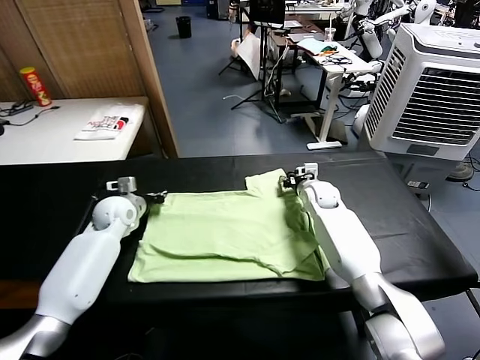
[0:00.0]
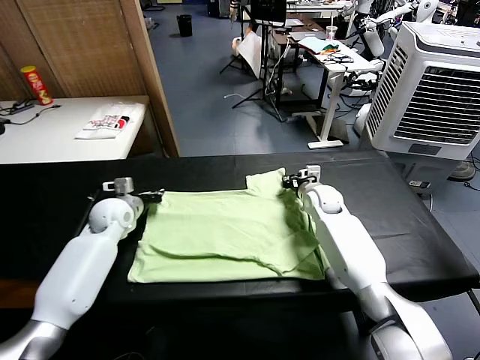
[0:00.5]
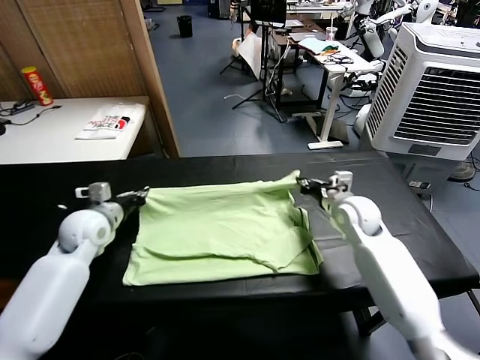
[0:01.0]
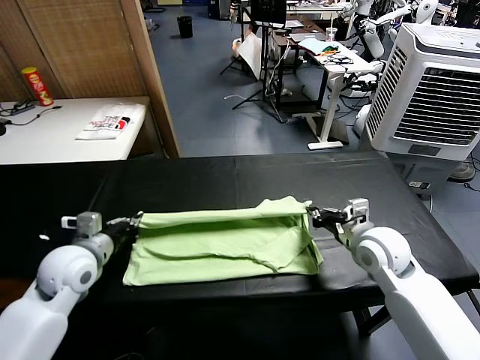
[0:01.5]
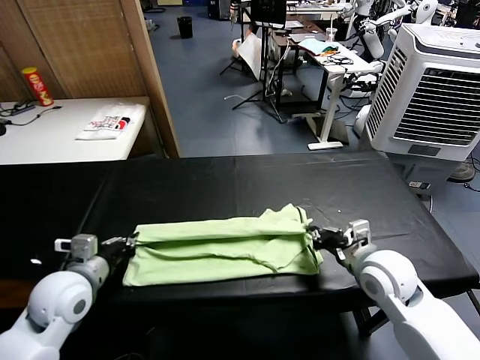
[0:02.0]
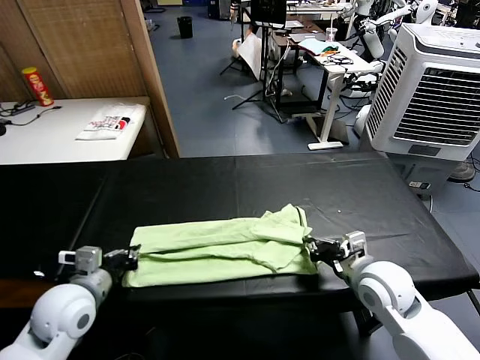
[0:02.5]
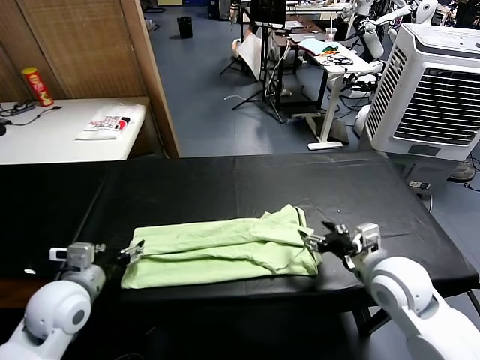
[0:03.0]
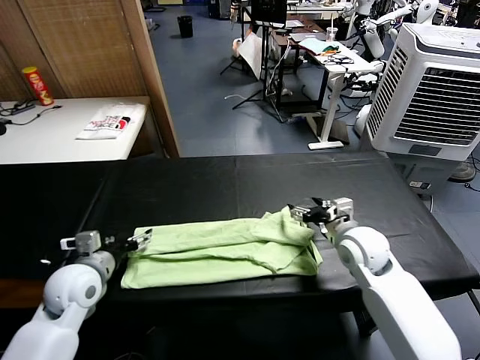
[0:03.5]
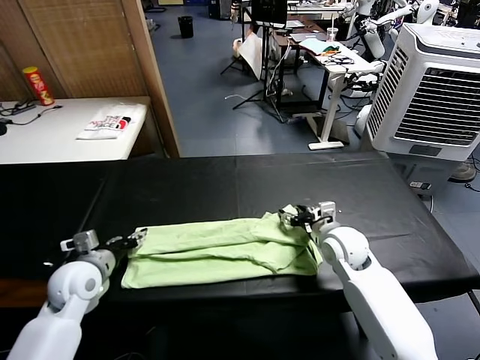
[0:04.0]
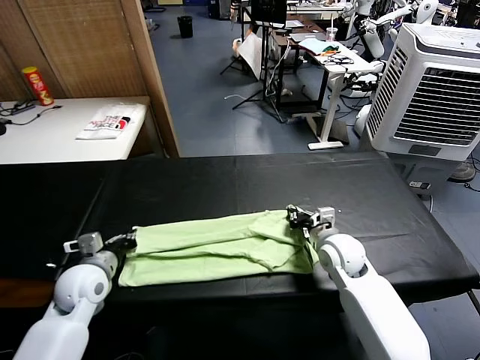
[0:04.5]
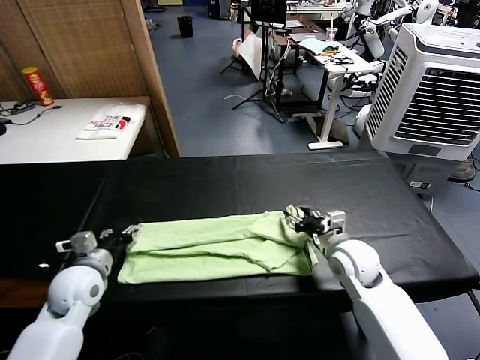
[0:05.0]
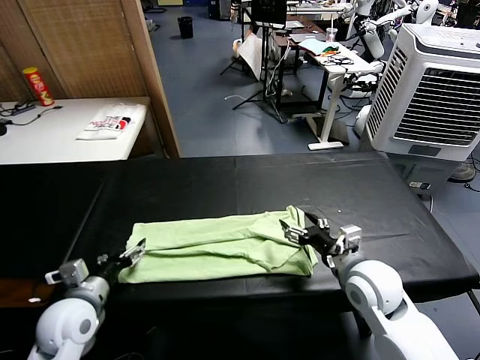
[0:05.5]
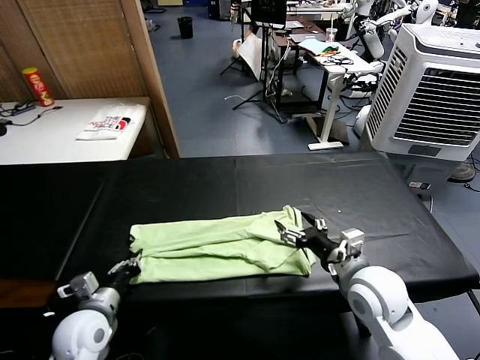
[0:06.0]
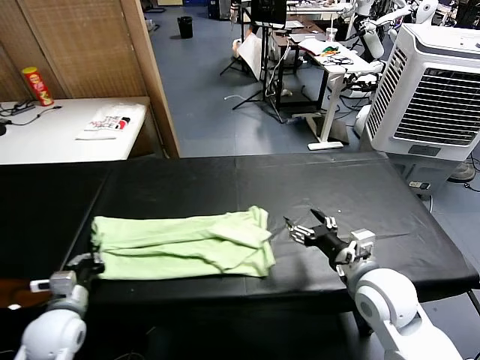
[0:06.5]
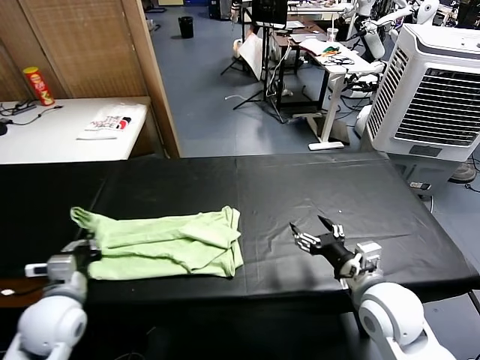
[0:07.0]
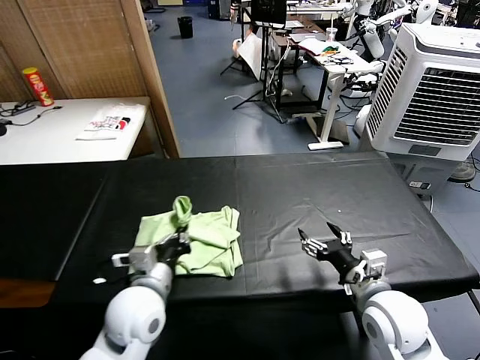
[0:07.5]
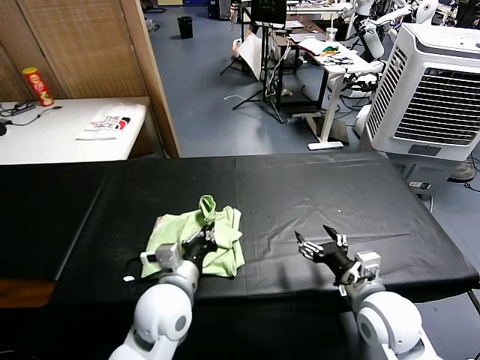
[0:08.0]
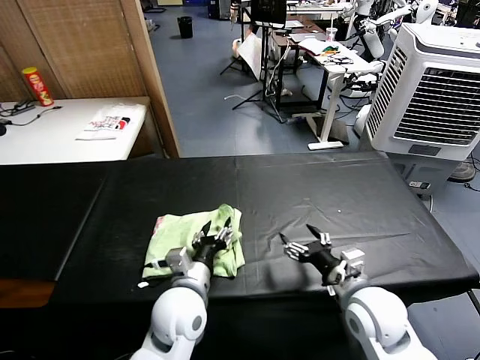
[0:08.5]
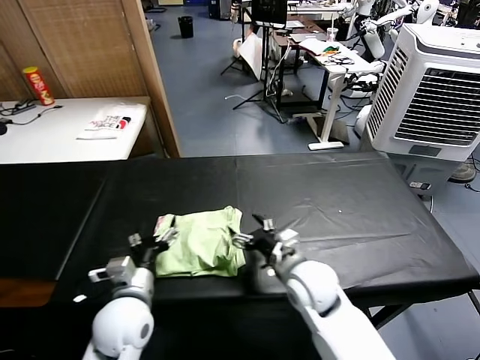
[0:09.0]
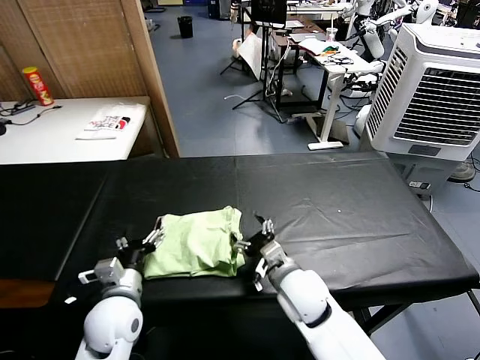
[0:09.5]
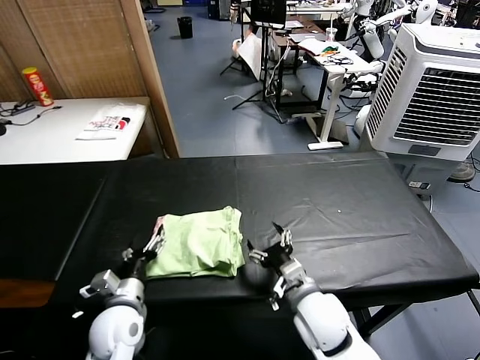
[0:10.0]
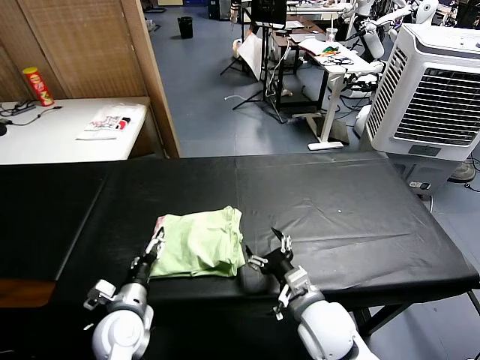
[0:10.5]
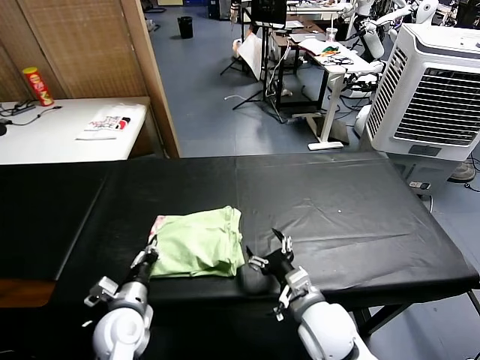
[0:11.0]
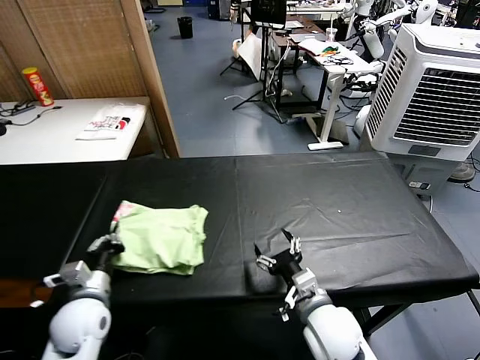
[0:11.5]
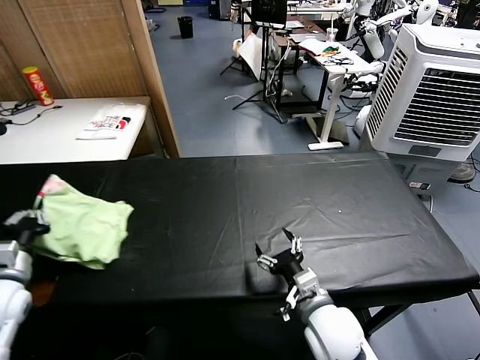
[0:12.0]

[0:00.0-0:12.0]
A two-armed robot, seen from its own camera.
Task of the whole recording: fold and organize the clothes.
Step, 0.5 to 2.5 s: use both grippers to drag the upper edge of the fabric backward and fold it over the lower edge.
Step, 3.0 to 6.0 s: use the left gripper to clamp the left edge of the fabric.
Step, 6.5 to 8.5 s: use the left gripper to drag the left edge of the fabric to the left and folds it over the right edge.
0.0 to 2.0 s: Both grippers move backward, some 25 cm.
2.0 to 4.0 s: The right gripper goes about 10 cm forward and downward, and opens up, while the left gripper ends up some 5 cm from where it was, and opens.
4.0 to 6.0 s: The left gripper moves backward, roughly 10 cm, and closes, while the right gripper moves backward and upward, approximately 15 cm, and opens.
6.0 to 8.0 s: The left gripper moves to the right and upward, about 20 cm.
8.0 to 10.0 s: The right gripper travels to the left by approximately 10 cm. The left gripper heads to the left and downward, covering roughly 15 cm, and opens its fingers.
10.0 to 12.0 s: The left gripper goes roughly 20 cm to the left and upward, and closes up.

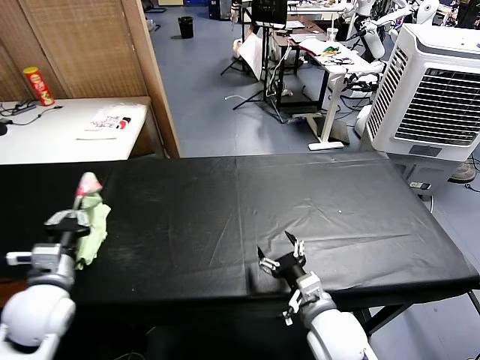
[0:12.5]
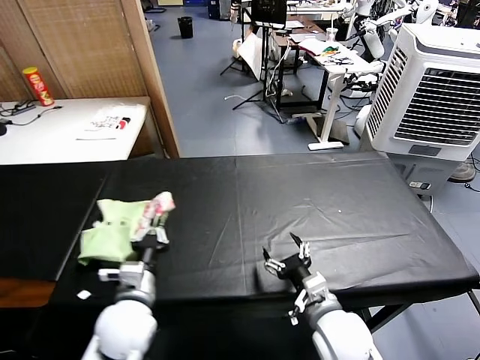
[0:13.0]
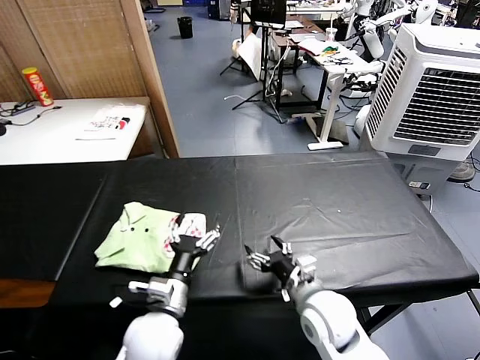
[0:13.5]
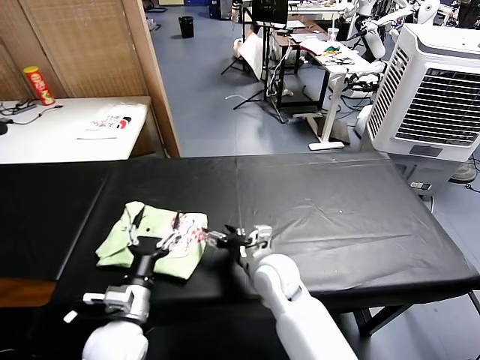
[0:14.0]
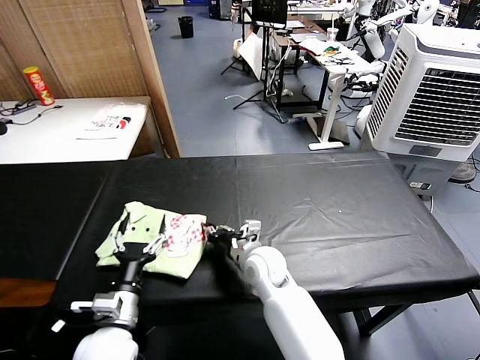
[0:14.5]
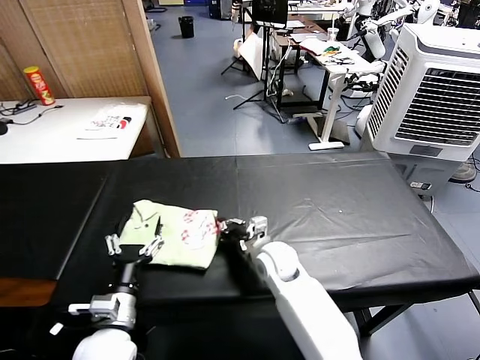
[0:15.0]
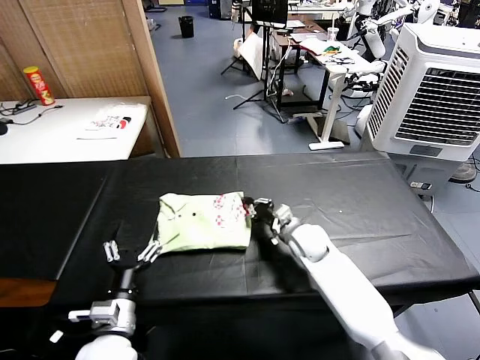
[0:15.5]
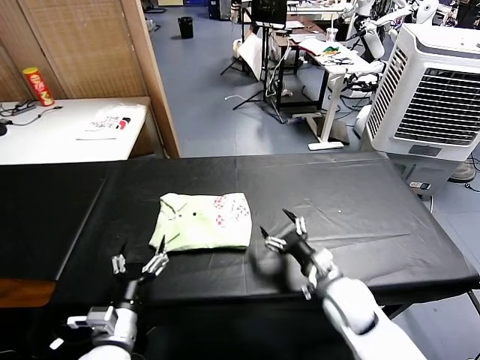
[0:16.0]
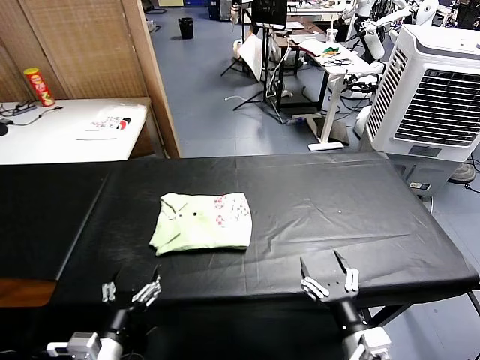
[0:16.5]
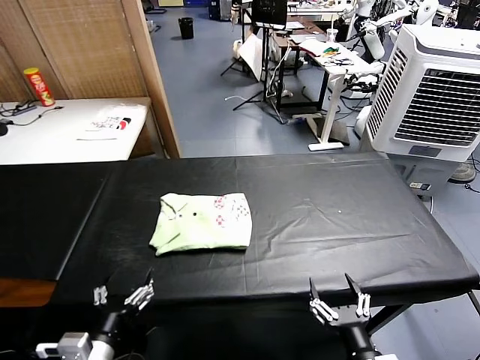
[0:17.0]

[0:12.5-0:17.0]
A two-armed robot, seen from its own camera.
Task of the whole recording: fold and organize the clothes.
Step, 13.5 to 15.5 s: Drag the clothes to the center of the table.
12.5 to 14.5 s: The left gripper heads to the right and downward, covering some 15 cm, and opens its fingers. Meanwhile the right gripper shifts roughly 20 cm forward and to the left, and closes.
14.5 to 17.0 s: The left gripper goes about 10 cm backward, while the right gripper moves backward and to the right, some 35 cm, and opens its fingers.

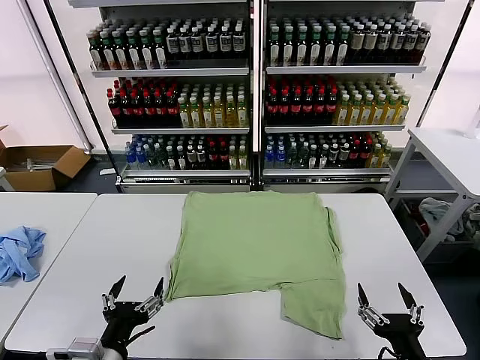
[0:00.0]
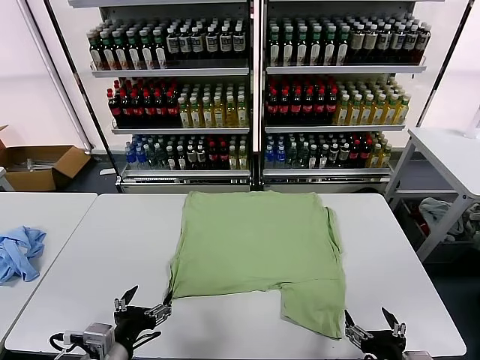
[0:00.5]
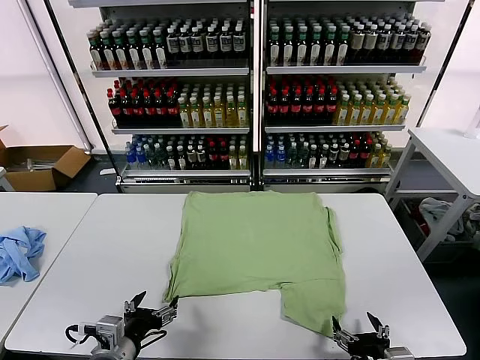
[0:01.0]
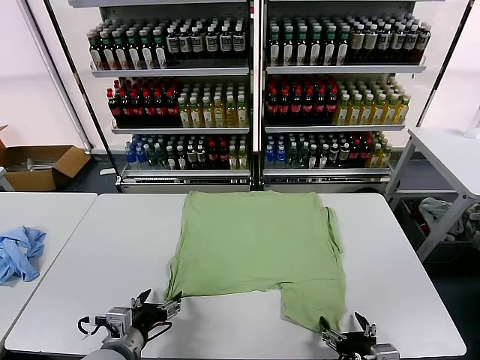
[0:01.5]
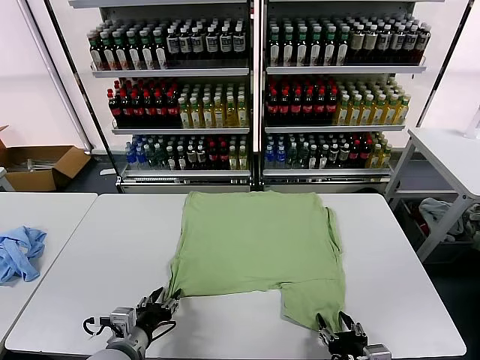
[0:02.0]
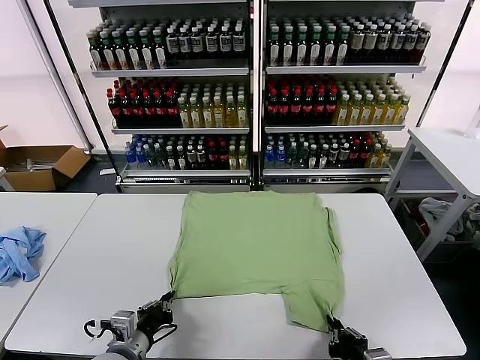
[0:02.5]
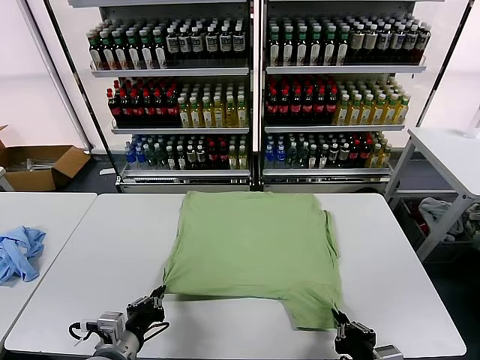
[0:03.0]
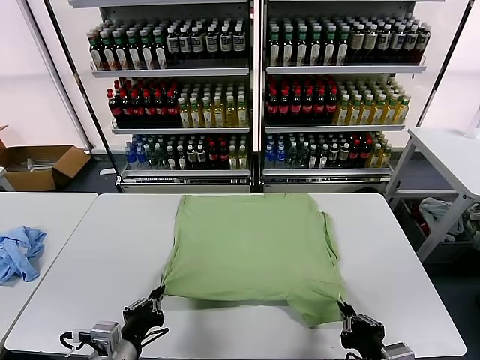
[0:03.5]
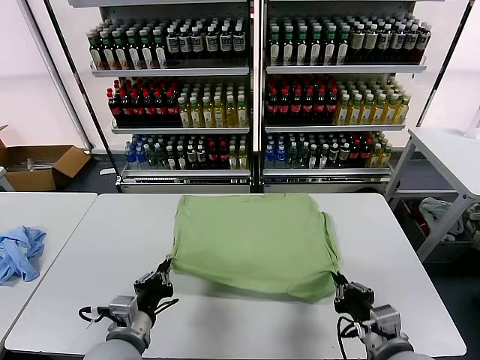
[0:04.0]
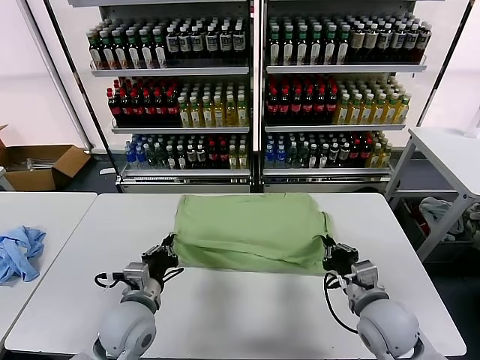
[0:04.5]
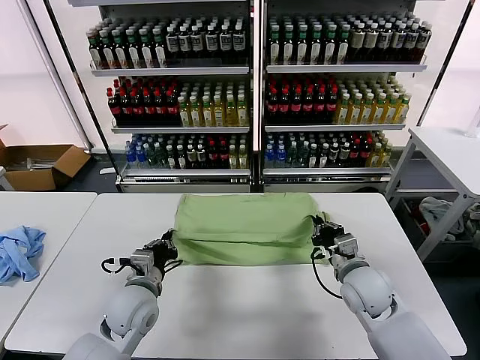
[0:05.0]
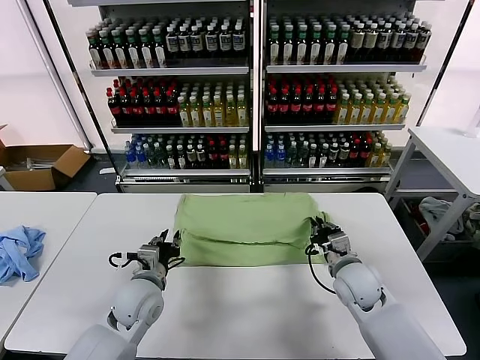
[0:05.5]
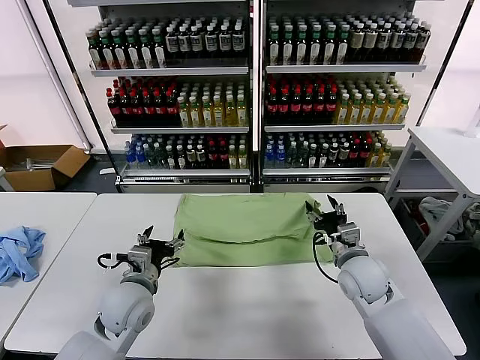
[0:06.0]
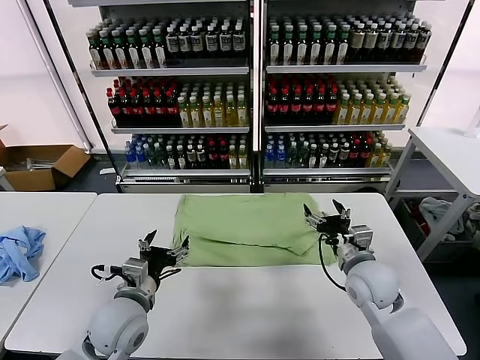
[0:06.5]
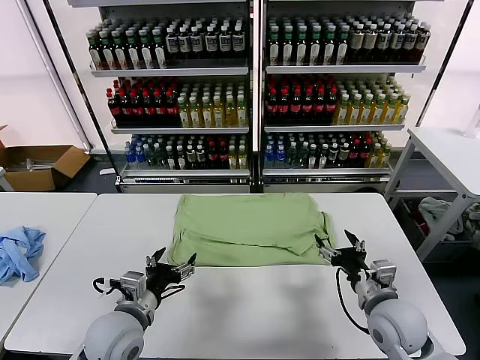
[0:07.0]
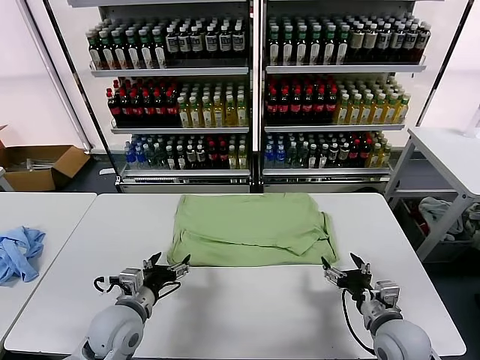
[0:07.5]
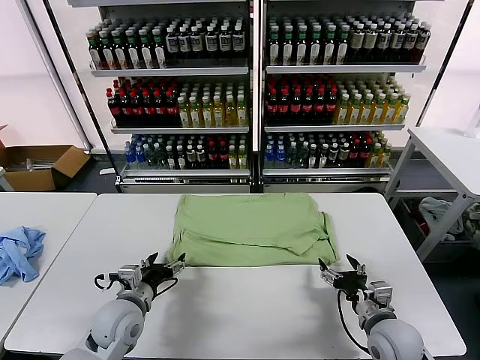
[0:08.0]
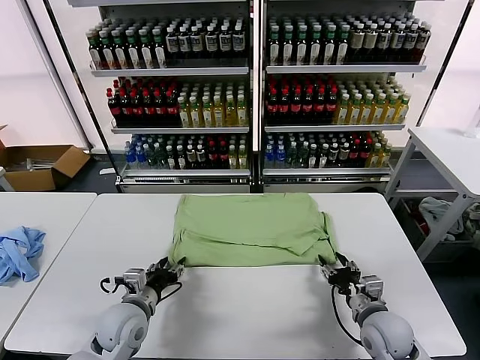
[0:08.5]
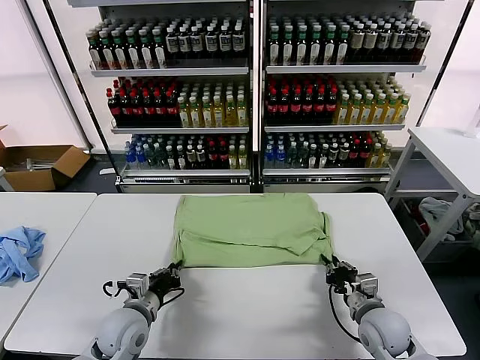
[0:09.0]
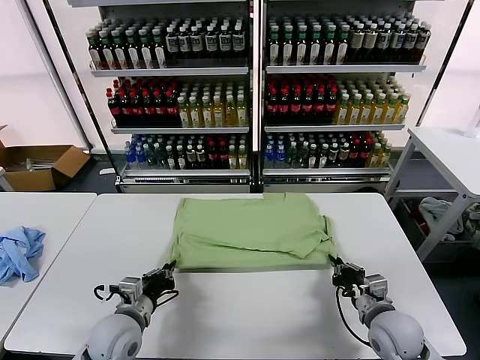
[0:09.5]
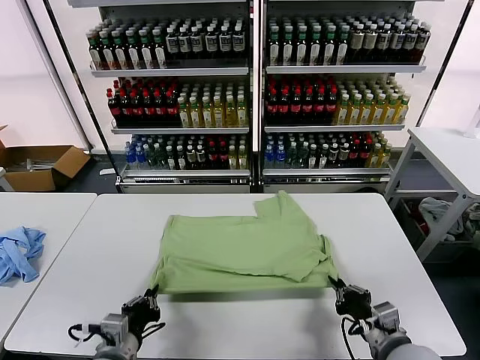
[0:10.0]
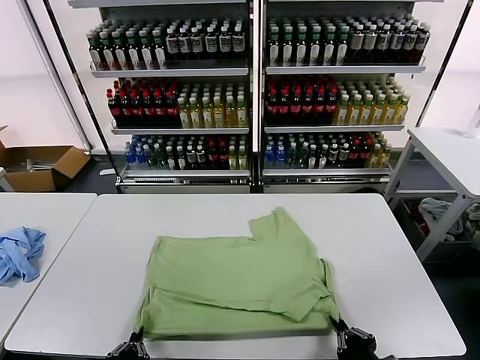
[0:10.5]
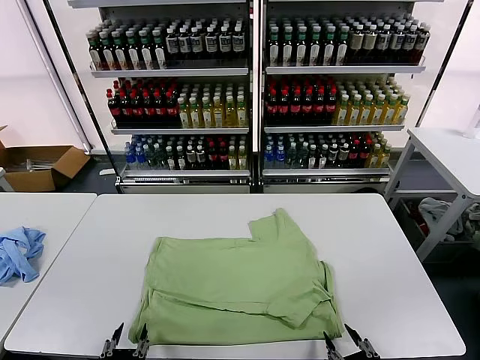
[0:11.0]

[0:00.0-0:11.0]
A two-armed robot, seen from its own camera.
Task of the whole recording: fold and organize the clothes.
Step, 0.0 to 2.5 s: use both grippers simultaneously to clamp the lower edge of the clothing fabric.
Step, 3.0 to 6.0 s: use both grippers to drag the lower edge of the fabric forward and fold it over the upper edge.
Step, 6.5 to 10.5 s: Drag the clothes downward with both gripper.
2.0 to 3.5 s: The two grippers go approximately 5 cm upward. The left gripper closes up. The right gripper closes up.
3.5 to 5.5 s: Both grippers move forward, about 20 cm. The left gripper opens.
5.5 to 7.5 s: The right gripper heads backward and to the right, covering about 15 cm, and opens, while the left gripper is displaced backward by some 5 cm, and opens its fingers.
7.5 to 9.0 s: The left gripper closes up. Meanwhile the right gripper closes up.
9.0 to 11.0 s: Both grippers travel together backward, some 20 cm. The left gripper opens up, while the right gripper opens its fingers.
